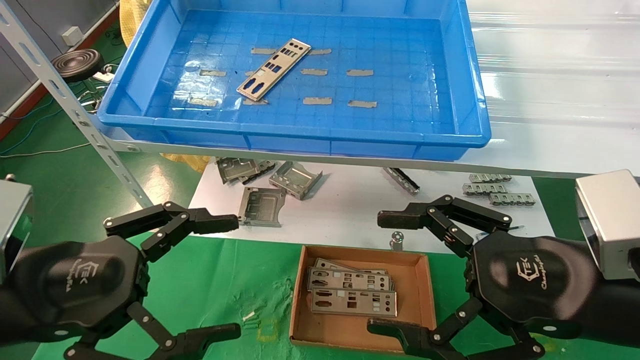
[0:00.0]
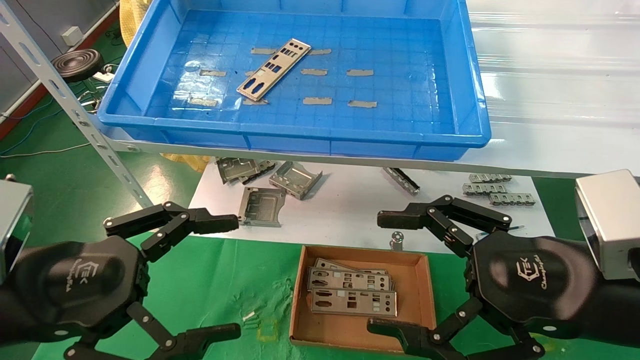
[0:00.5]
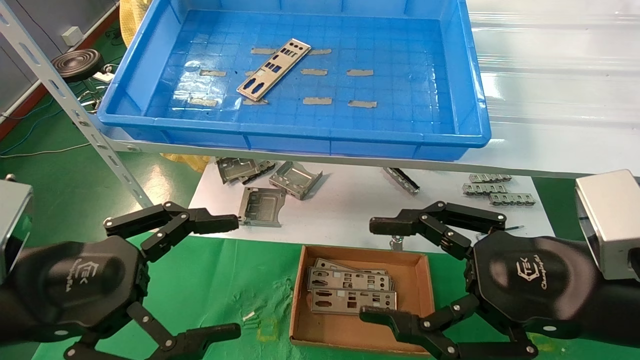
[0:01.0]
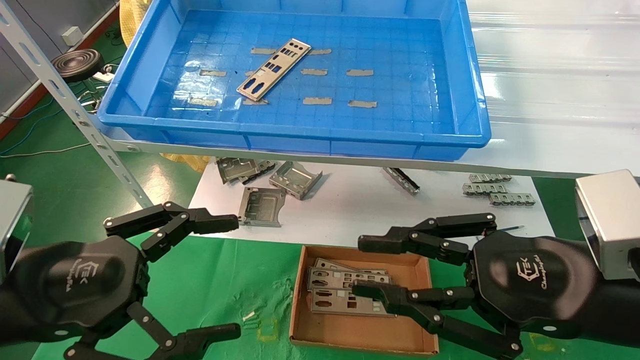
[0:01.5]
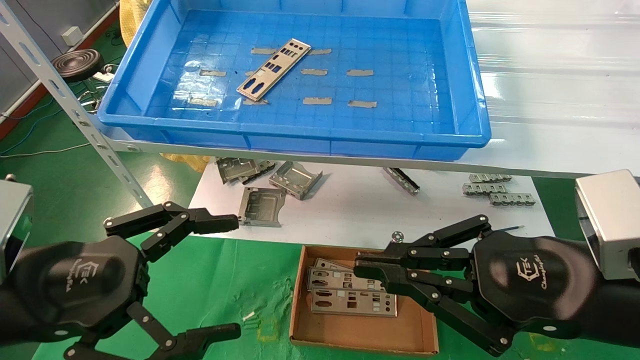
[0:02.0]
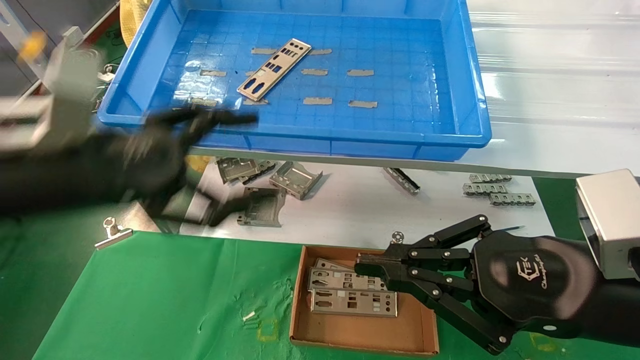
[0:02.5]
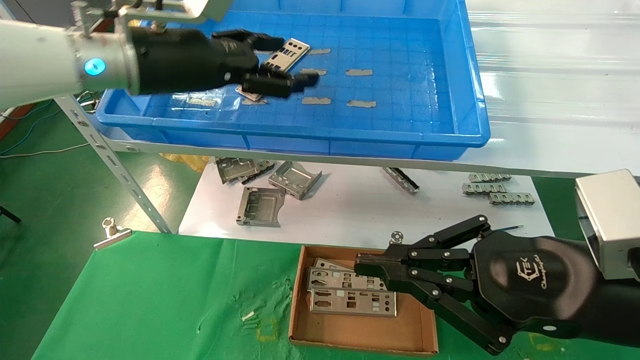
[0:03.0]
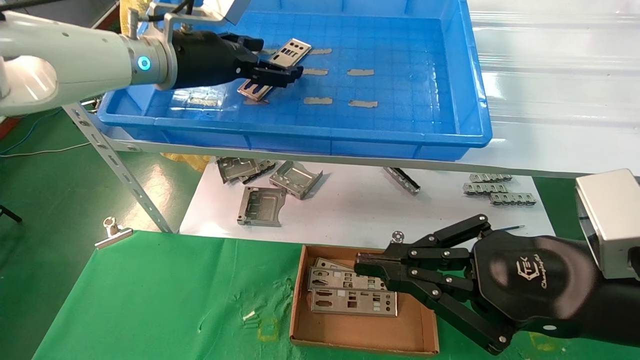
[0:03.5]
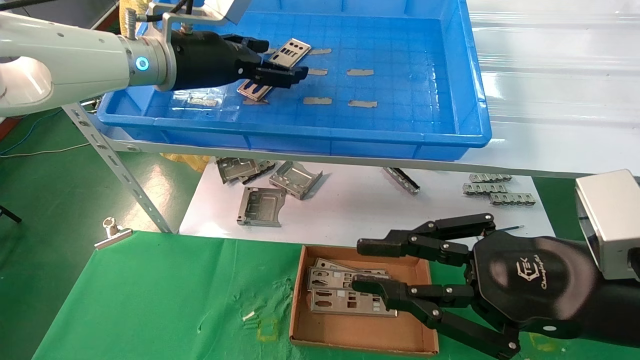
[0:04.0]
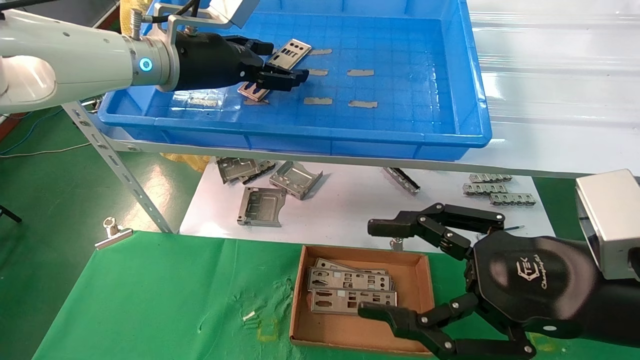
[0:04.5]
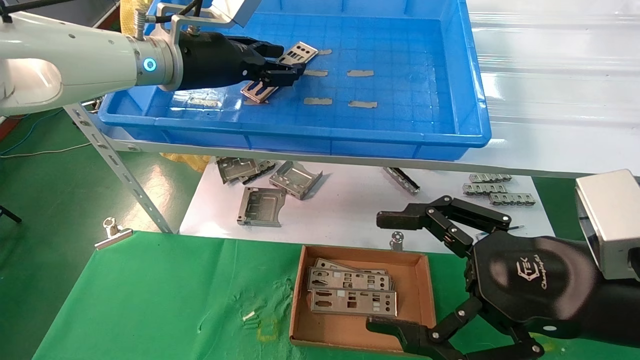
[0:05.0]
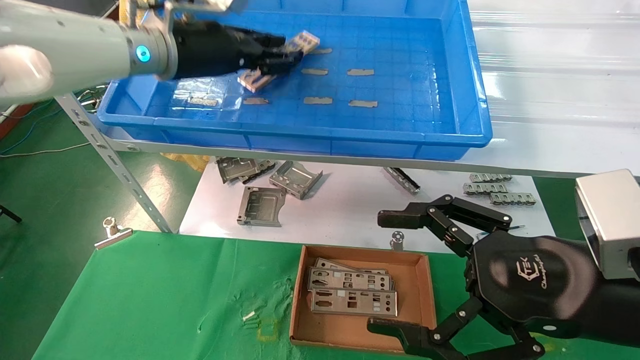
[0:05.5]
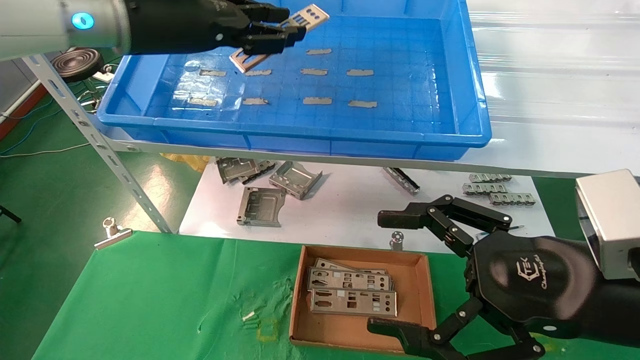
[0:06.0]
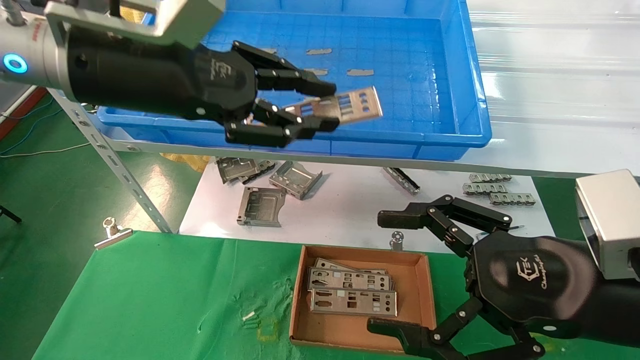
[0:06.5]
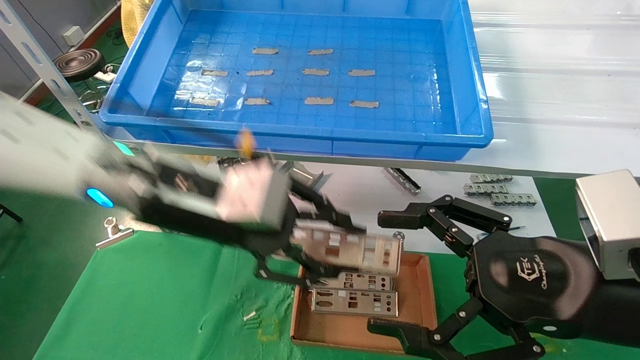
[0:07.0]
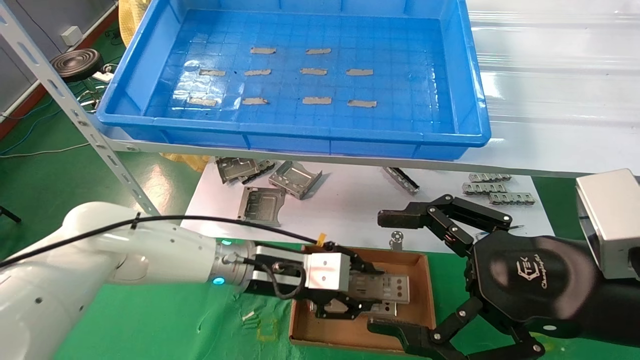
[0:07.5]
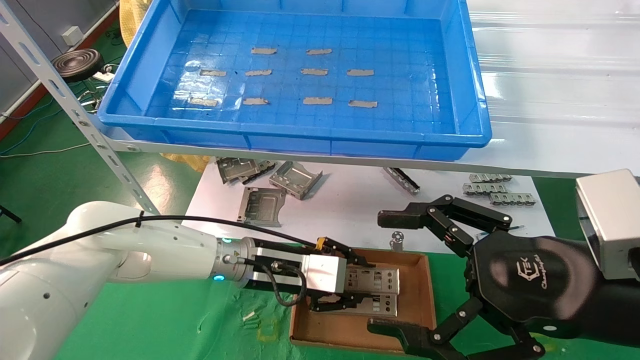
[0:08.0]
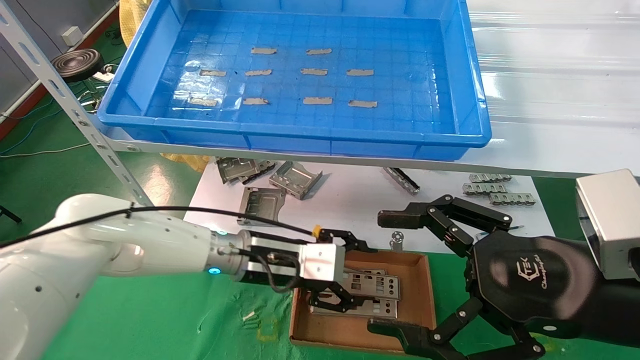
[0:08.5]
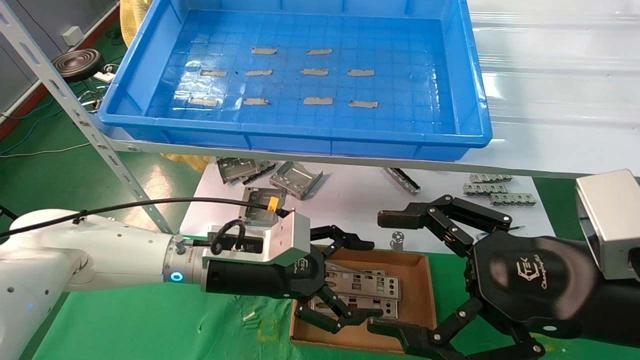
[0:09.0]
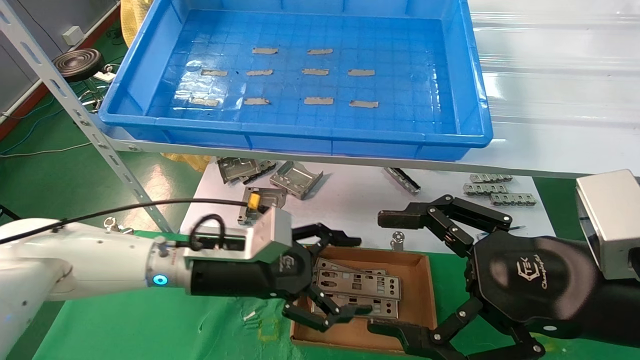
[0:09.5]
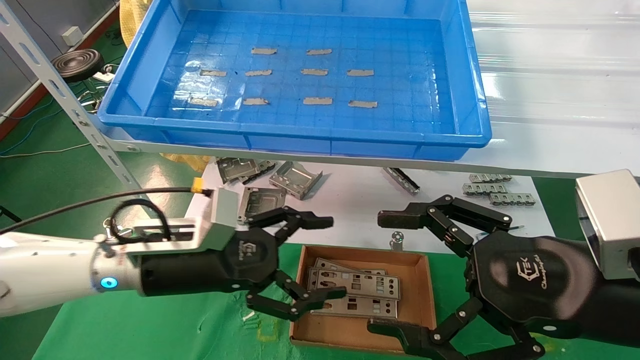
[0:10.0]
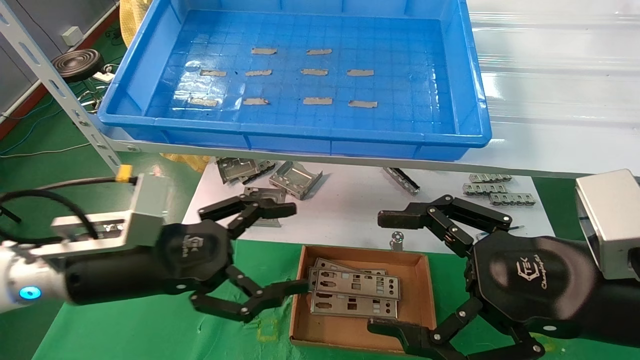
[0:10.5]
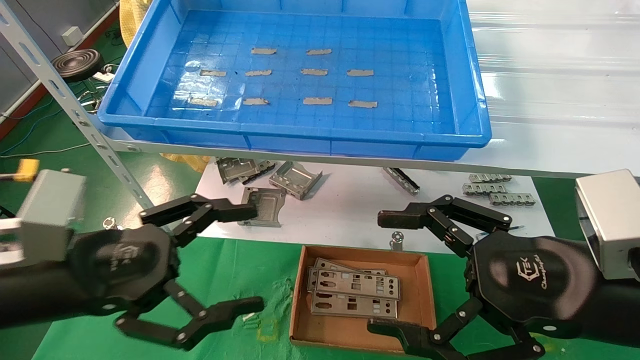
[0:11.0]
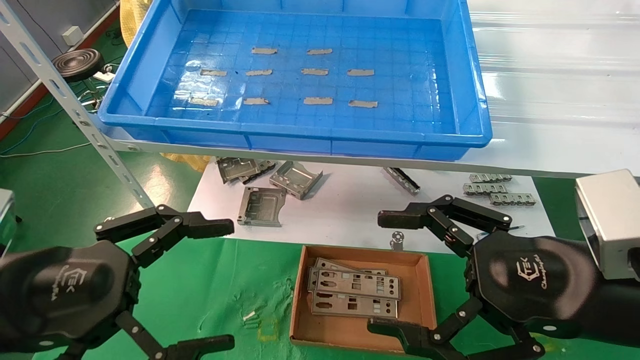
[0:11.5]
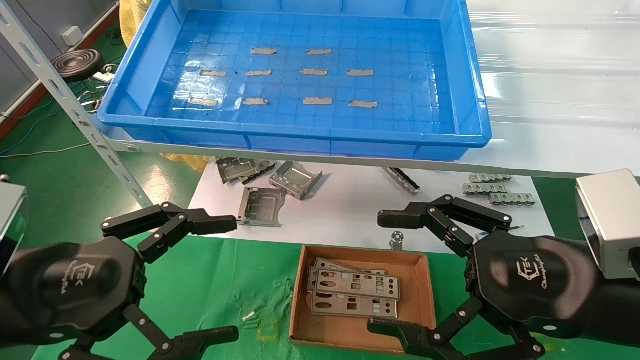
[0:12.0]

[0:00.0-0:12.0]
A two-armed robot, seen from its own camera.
Task of the whole recording: pick up the parts on the tray and put them in the cardboard box.
Step, 0:03.0 to 0:05.0: Pick up the IO bracket from the container box.
Step, 0:05.5 to 0:08.5: Place the IO bracket into the ingredient slot.
0:00.0 to 0:02.0: The right gripper closes.
0:02.0 to 0:04.0: The left gripper is displaced forward, upward and to the right by some 30 cm.
0:04.0 to 0:06.0: The right gripper opens up; the left gripper heads backward, covering approximately 5 cm, and closes.
0:06.0 to 0:08.0: The left gripper is displaced downward by approximately 30 cm.
0:08.0 to 0:10.0: The left gripper shifts about 15 cm to the left and backward, and opens its fingers.
0:10.0 to 0:12.0: The left gripper moves backward and to the left, roughly 15 cm.

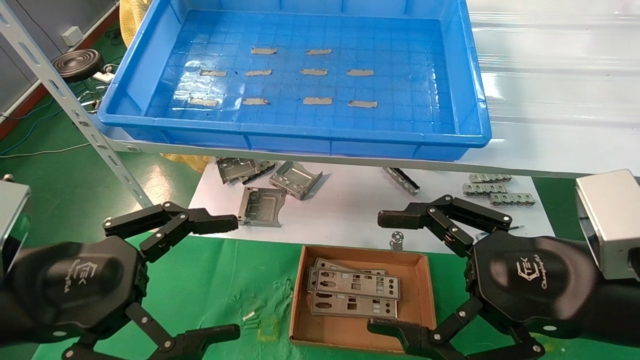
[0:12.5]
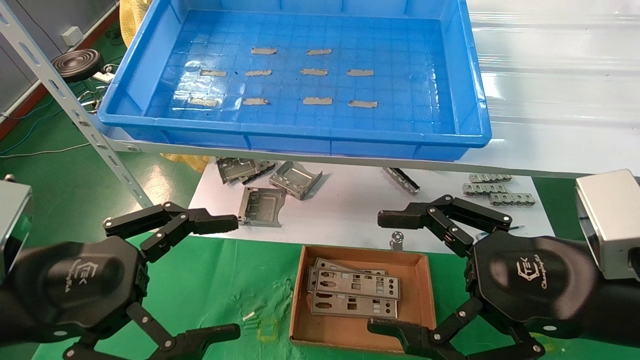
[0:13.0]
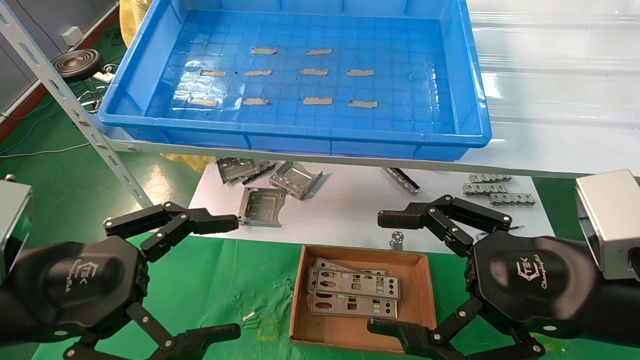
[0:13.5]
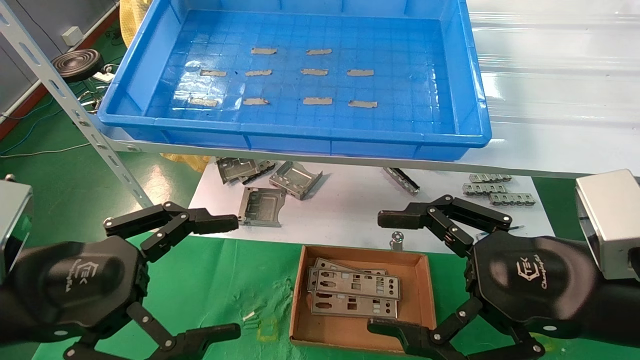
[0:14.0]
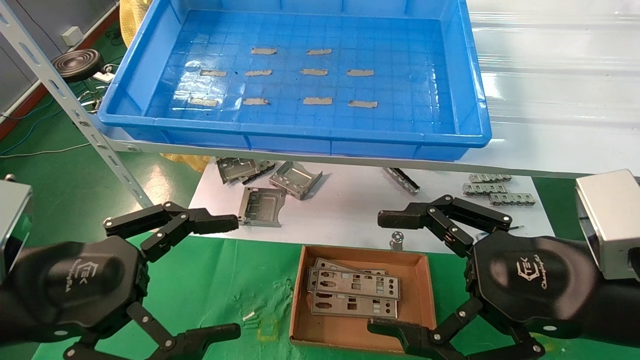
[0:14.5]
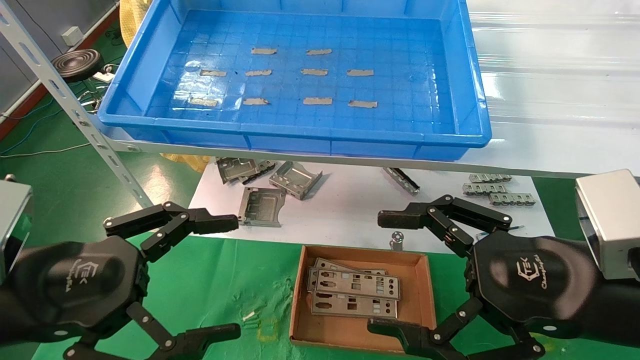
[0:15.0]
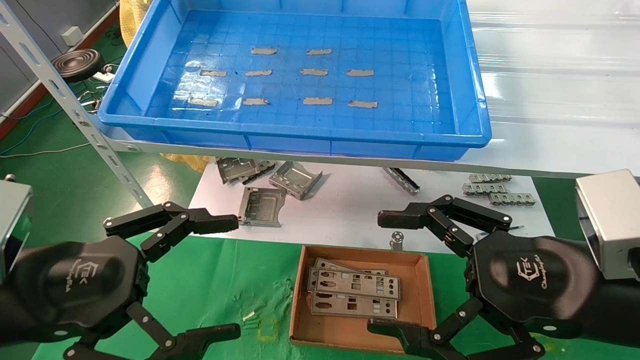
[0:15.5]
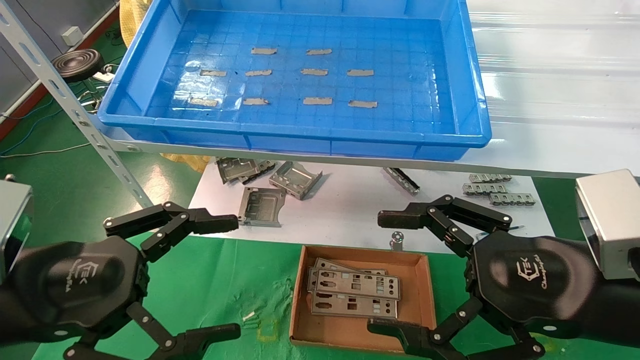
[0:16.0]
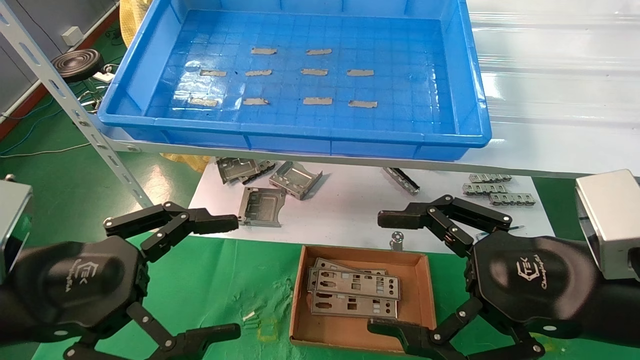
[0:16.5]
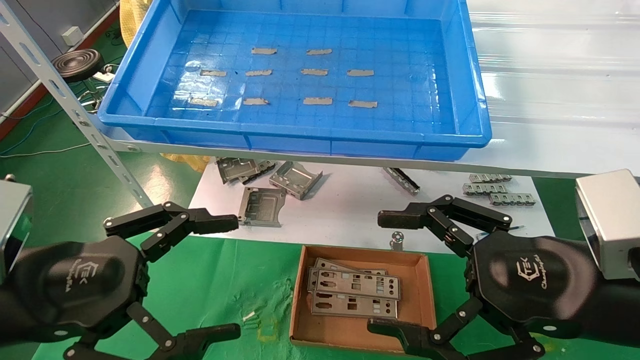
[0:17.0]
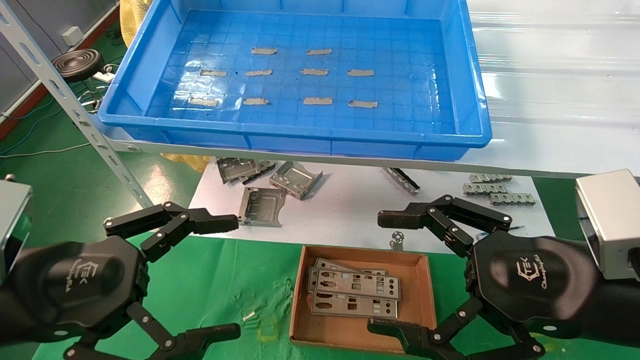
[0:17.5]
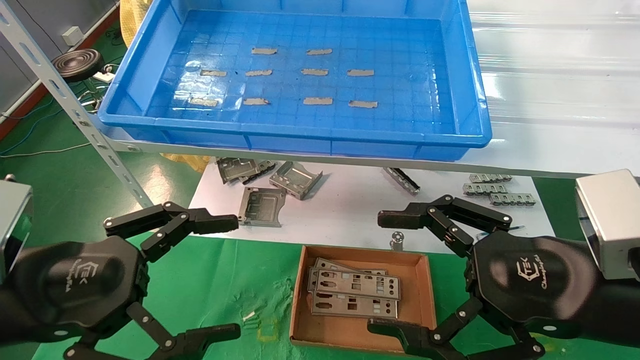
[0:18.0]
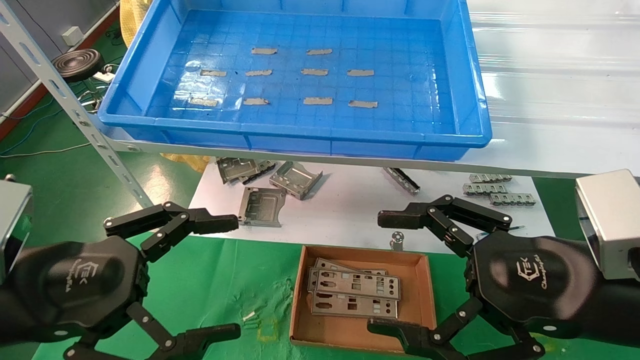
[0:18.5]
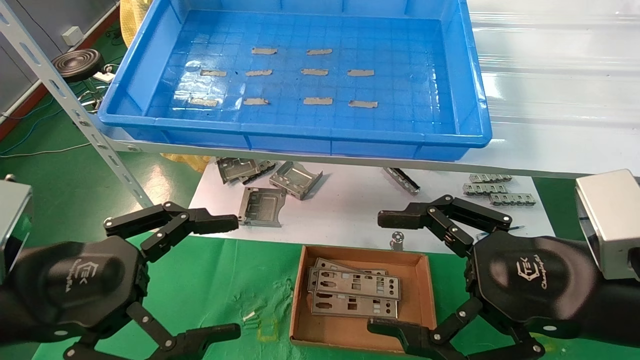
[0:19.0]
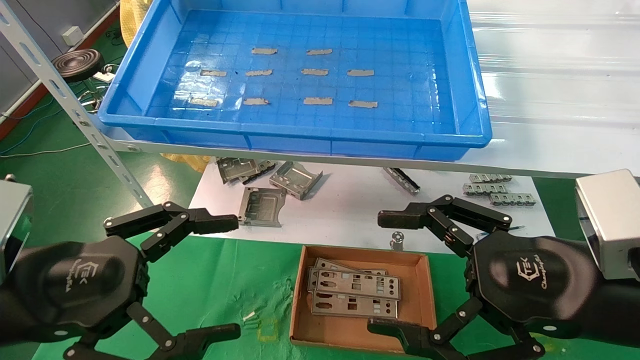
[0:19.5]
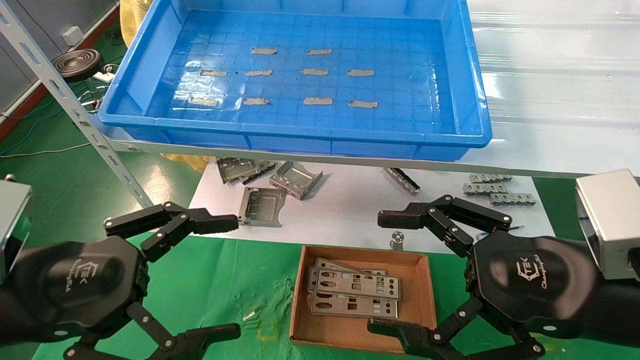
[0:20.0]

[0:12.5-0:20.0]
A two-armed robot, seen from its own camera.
Task of the whole recording: pick up the parts on the tray and put them in the cardboard box.
0:12.5 to 0:20.0: Both grippers stay about where they are.
